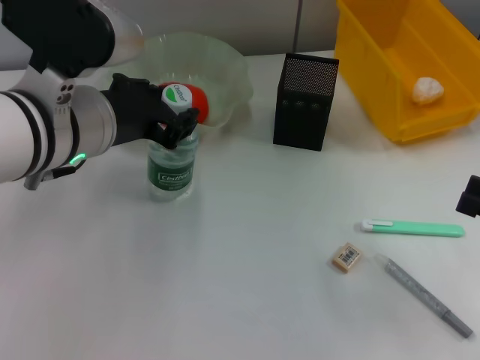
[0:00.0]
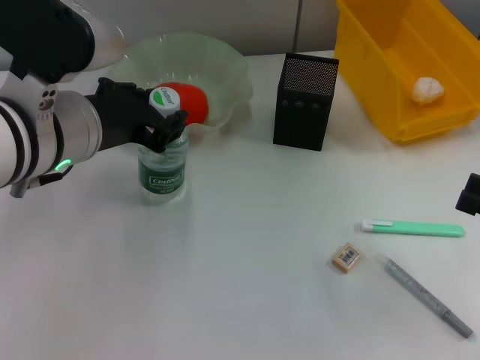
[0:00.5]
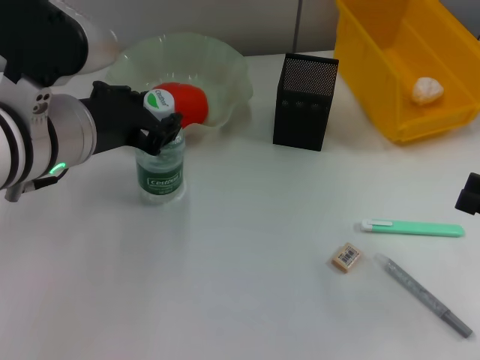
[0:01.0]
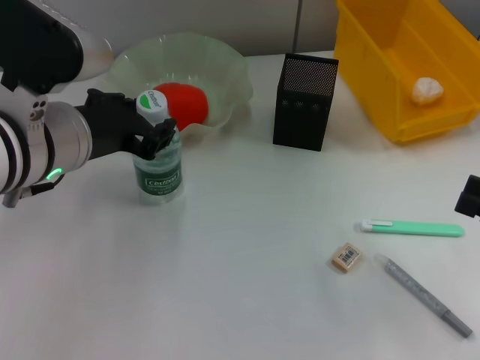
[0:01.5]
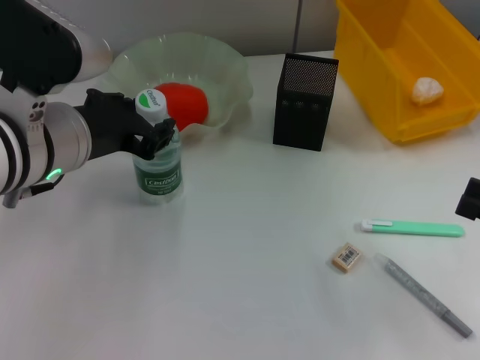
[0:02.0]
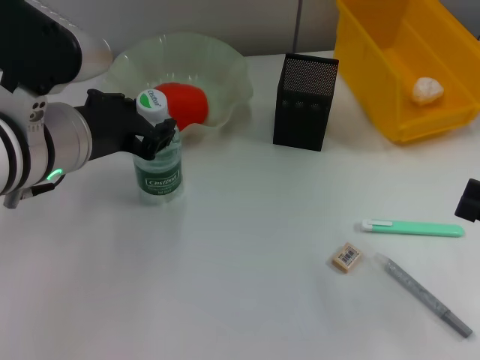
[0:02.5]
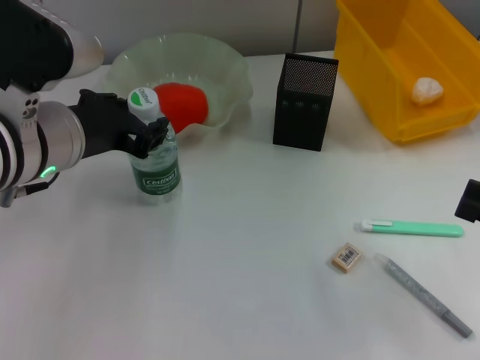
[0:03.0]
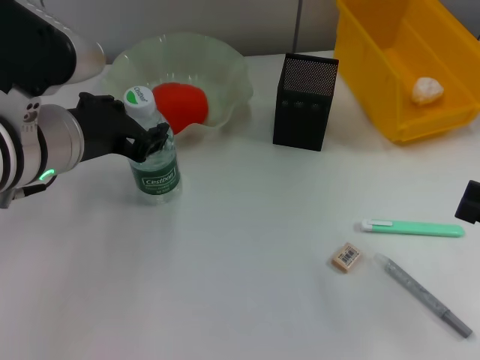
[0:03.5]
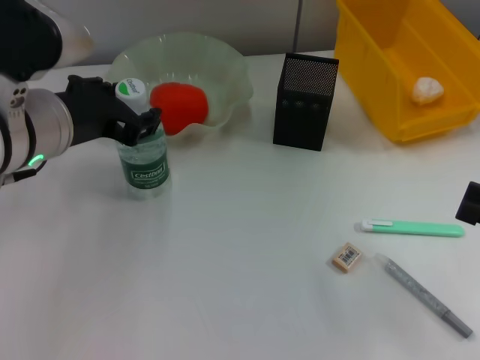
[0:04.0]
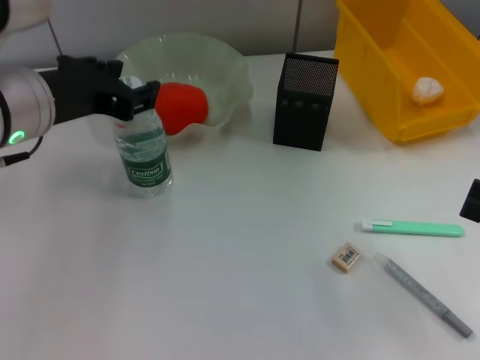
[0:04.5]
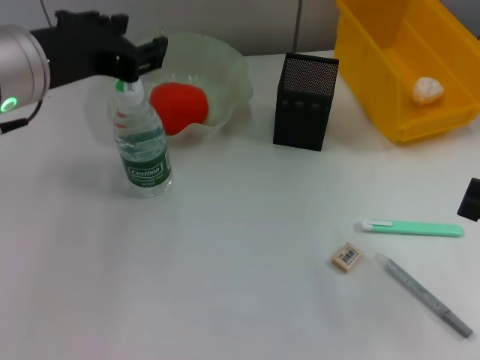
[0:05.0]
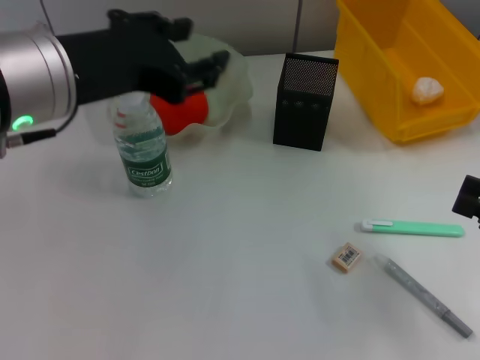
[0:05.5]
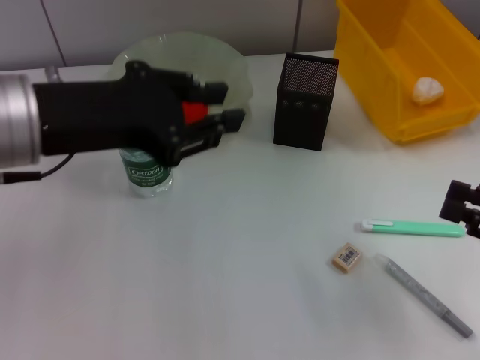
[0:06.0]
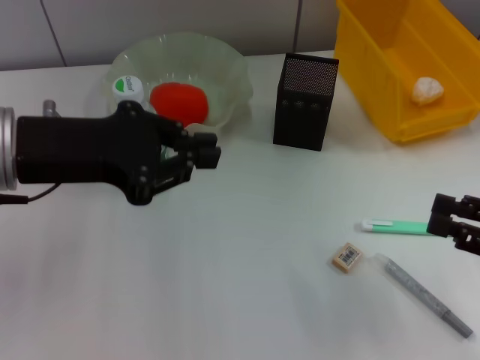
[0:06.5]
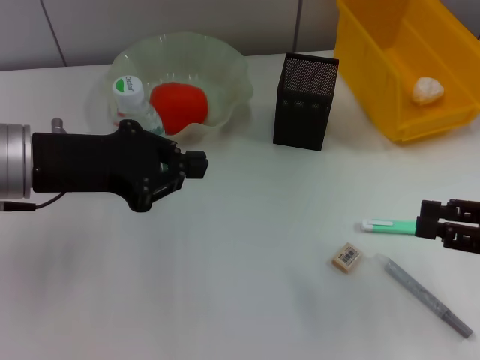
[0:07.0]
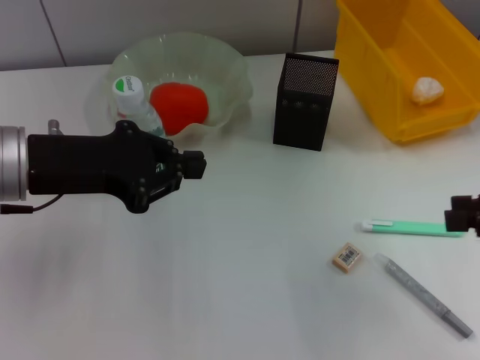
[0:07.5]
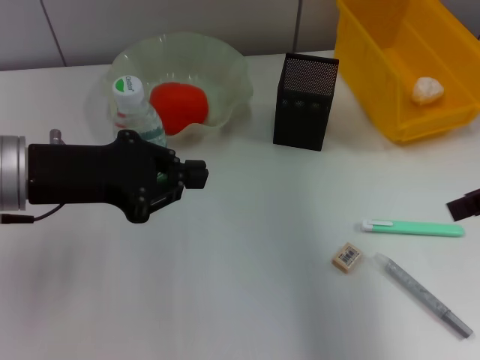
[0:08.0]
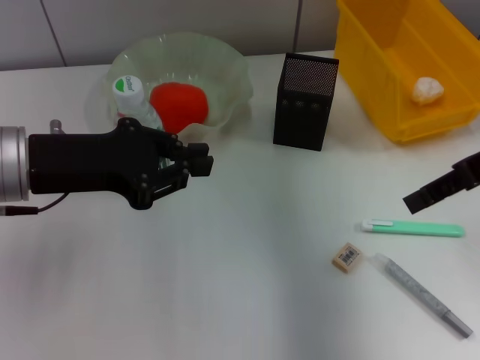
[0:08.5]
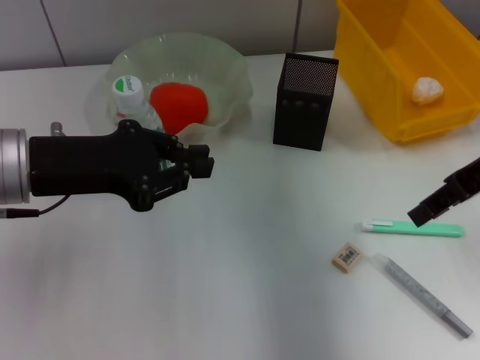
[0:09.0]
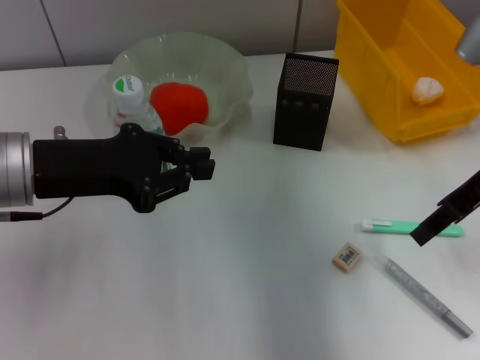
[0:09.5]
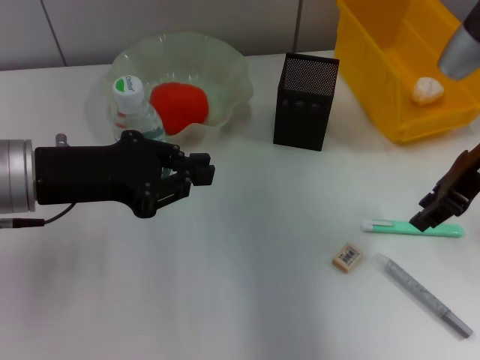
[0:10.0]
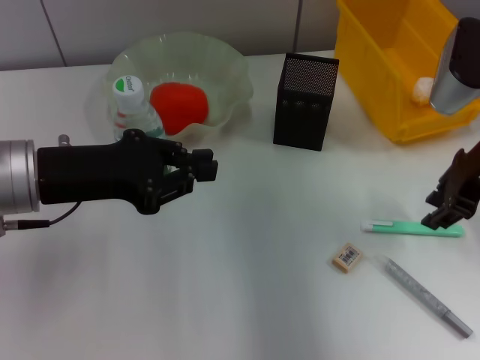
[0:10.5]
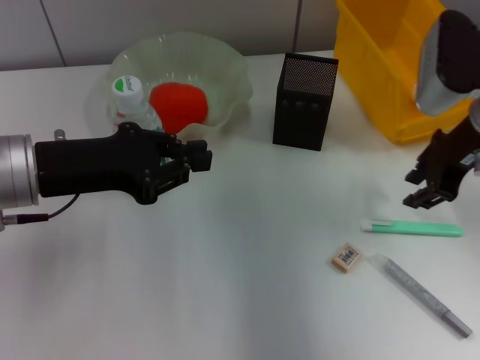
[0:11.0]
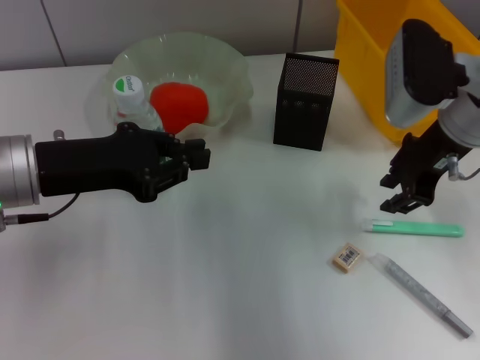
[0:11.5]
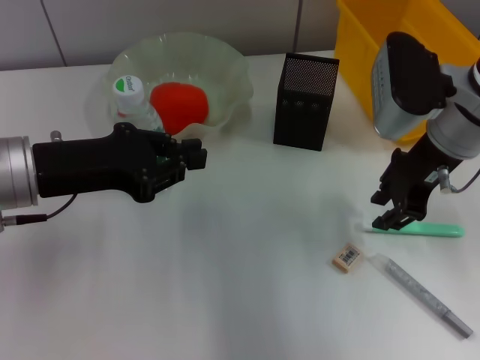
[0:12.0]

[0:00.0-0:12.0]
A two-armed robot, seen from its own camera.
Step, 0:00.0 to 0:05.0: Place the water bottle on the table with the left hand.
0:00.0 to 0:04.0: The grippers move only a little.
0:04.0 to 0:06.0: The left gripper moves some 5 cm.
0:06.0 to 0:08.0: The right gripper travels upward and forward by approximately 15 cm, while the left gripper is displaced downward by about 5 cm, and closes.
0:08.0 to 0:10.0: The right gripper heads forward, to the left and downward, covering about 10 cm.
0:10.0 to 0:12.0: The right gripper shifts about 5 cm to the left.

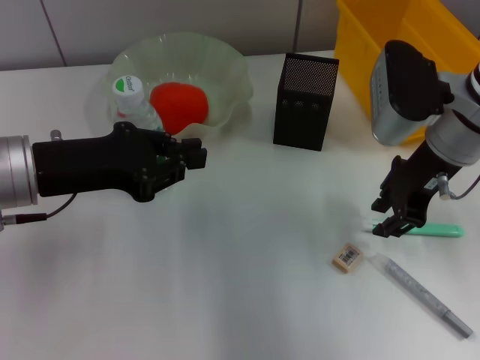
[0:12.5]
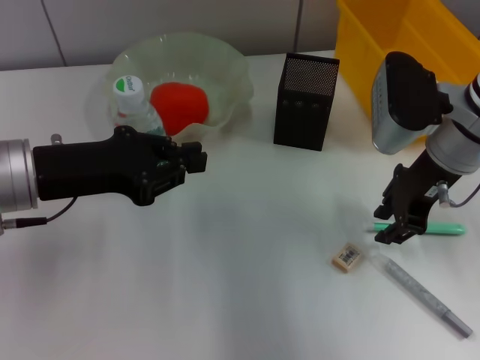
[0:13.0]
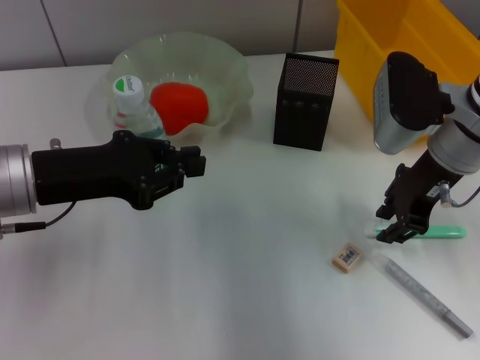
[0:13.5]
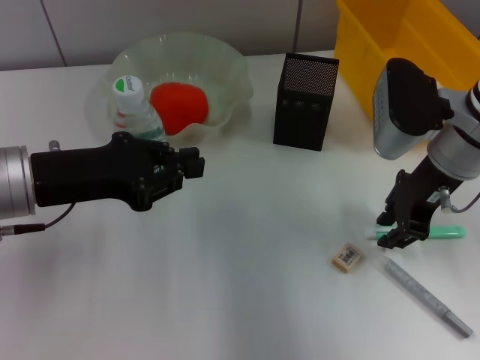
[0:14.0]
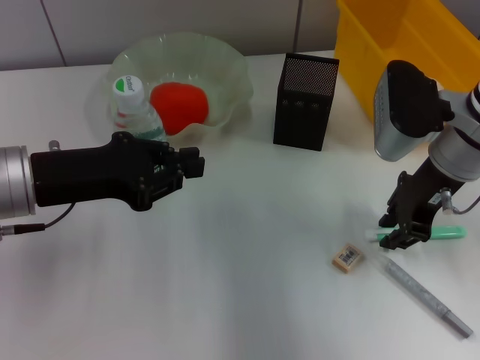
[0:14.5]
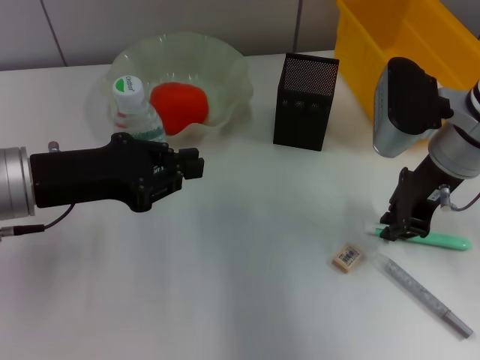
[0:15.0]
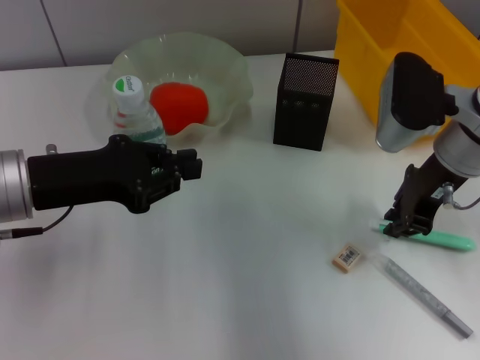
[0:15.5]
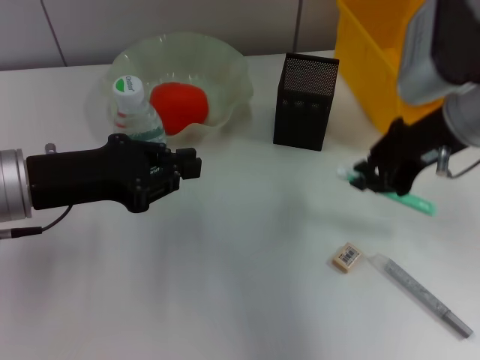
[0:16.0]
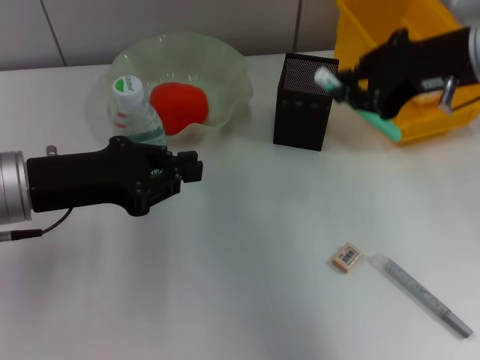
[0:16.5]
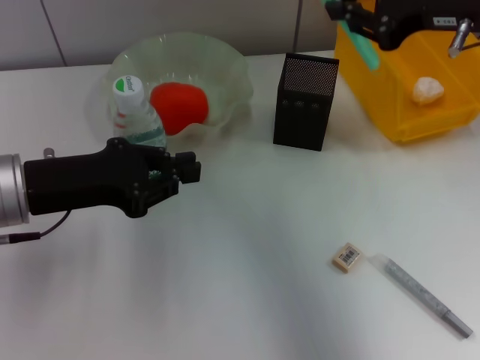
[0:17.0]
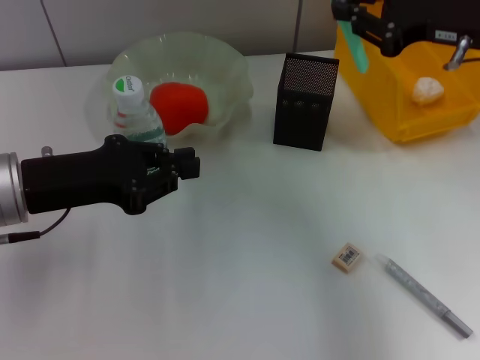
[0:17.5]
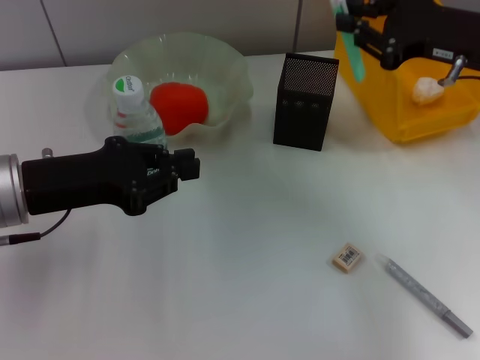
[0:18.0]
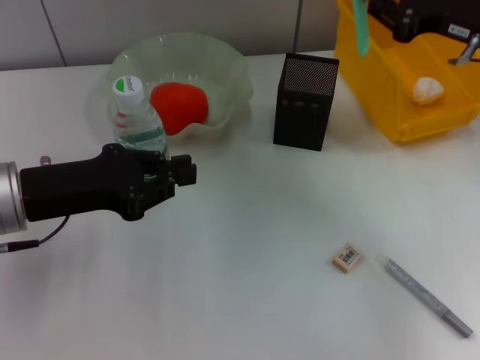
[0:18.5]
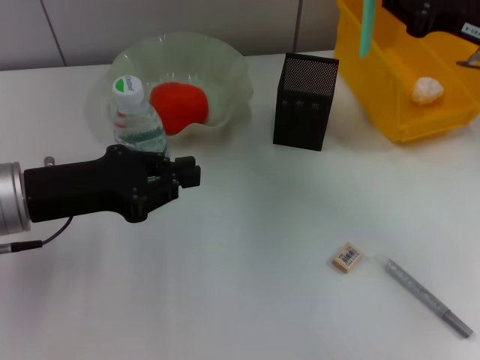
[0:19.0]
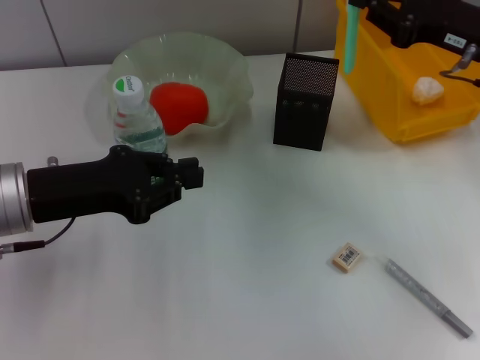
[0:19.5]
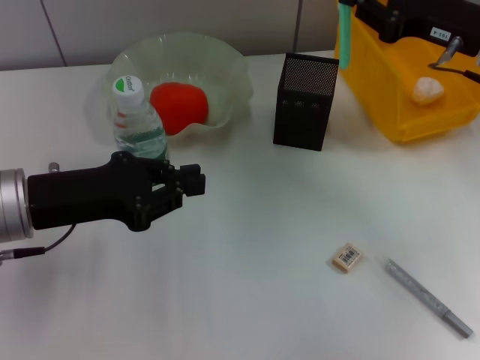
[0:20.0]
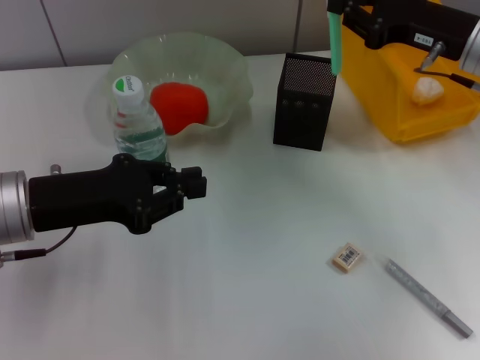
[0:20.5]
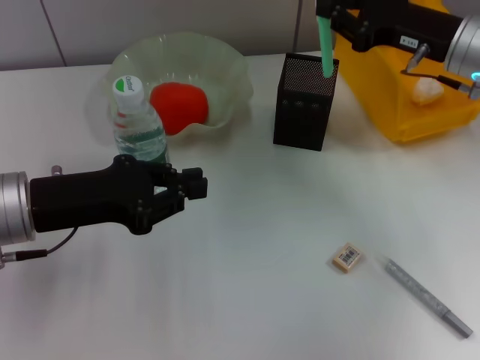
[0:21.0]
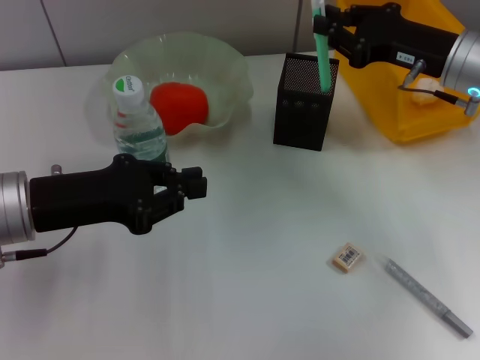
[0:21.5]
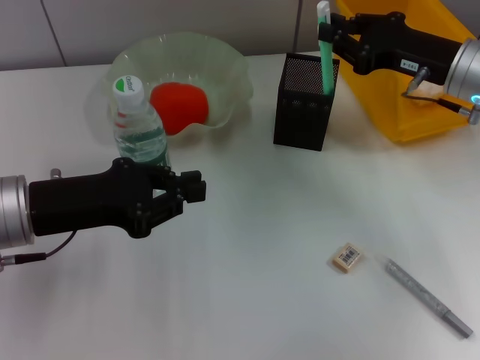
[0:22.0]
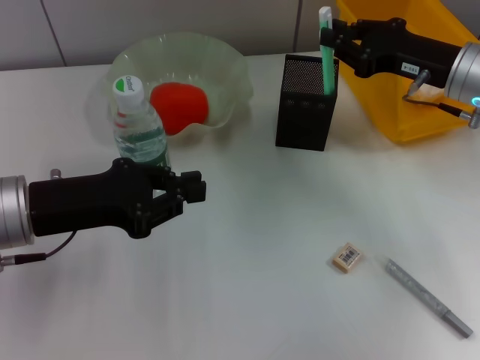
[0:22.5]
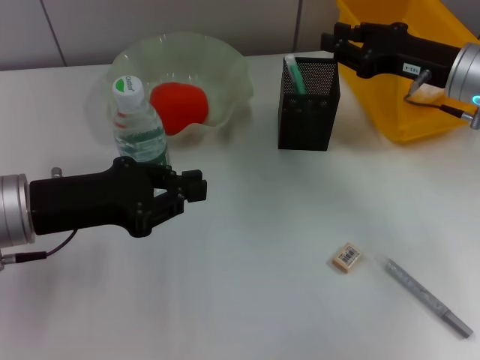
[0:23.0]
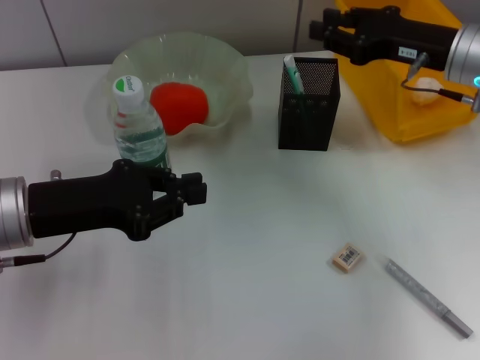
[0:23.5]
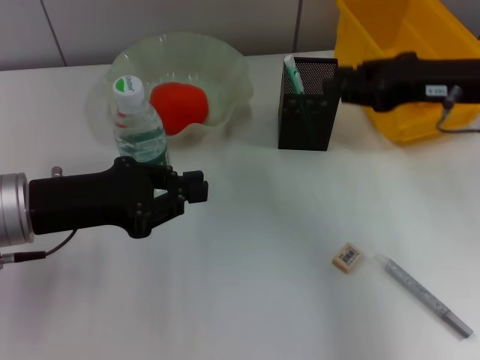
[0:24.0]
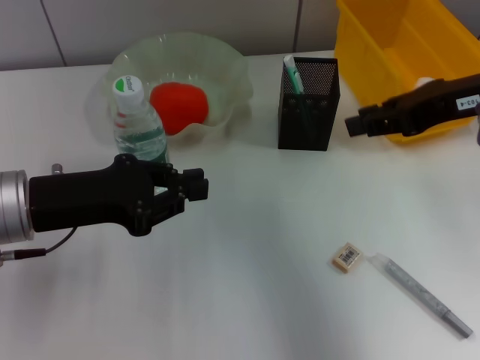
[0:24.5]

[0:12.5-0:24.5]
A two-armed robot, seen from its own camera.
Step, 0:12.5 to 0:15.0: Grab the blue utility knife with the right hand.
Step, 0:15.5 to 0:23.0: Place the blue utility knife into the pen holder with the right hand.
0:12.5 to 0:14.5: There are only small adjustments of the grippers.
0:14.5 to 0:16.5: The right gripper moves upward, roughly 10 cm.
0:16.5 to 0:18.5: The right gripper goes approximately 10 cm to the right and downward.
0:18.5 to 0:20.5: The grippers move only a little.
0:20.5 to 0:22.5: The grippers stay close to where they were, moving slightly.
0:22.5 to 0:24.5: The right gripper is displaced upward and backward by about 10 cm.

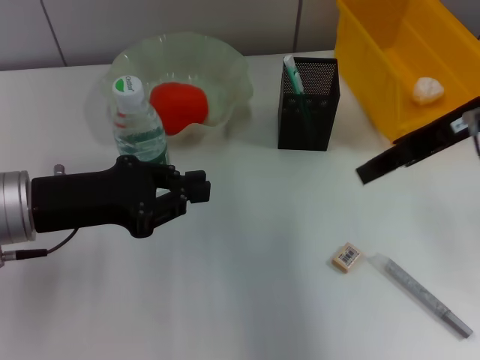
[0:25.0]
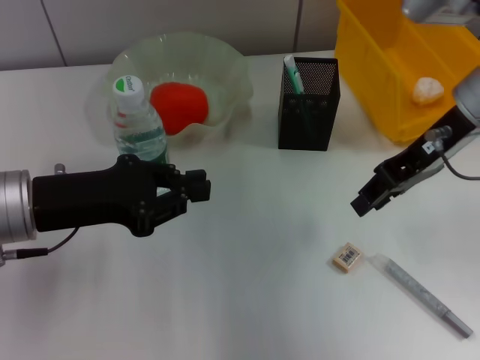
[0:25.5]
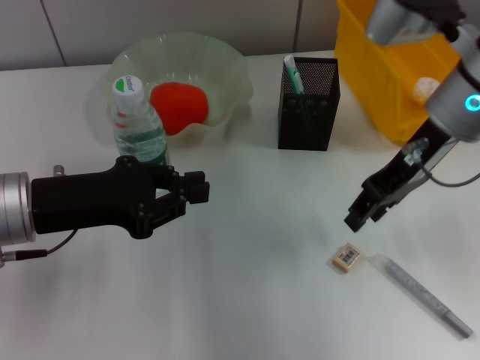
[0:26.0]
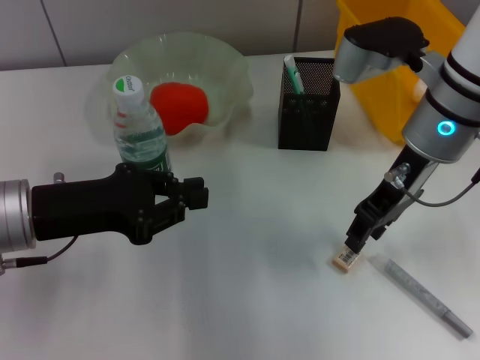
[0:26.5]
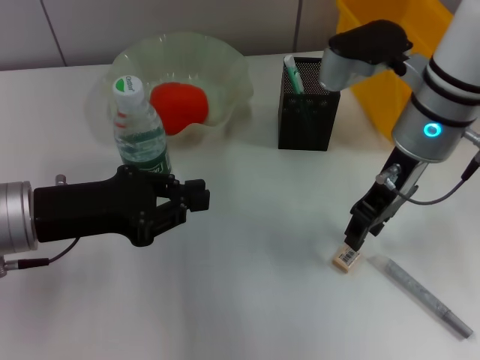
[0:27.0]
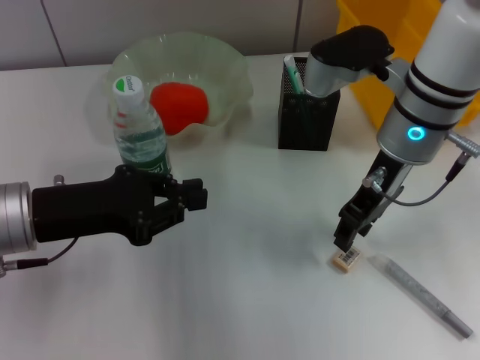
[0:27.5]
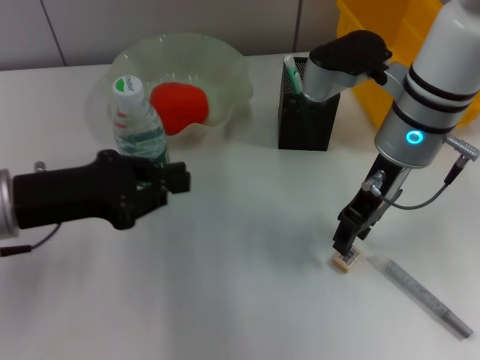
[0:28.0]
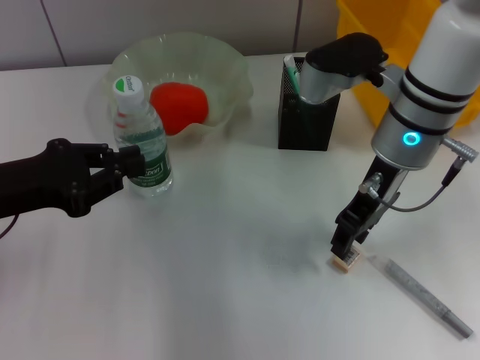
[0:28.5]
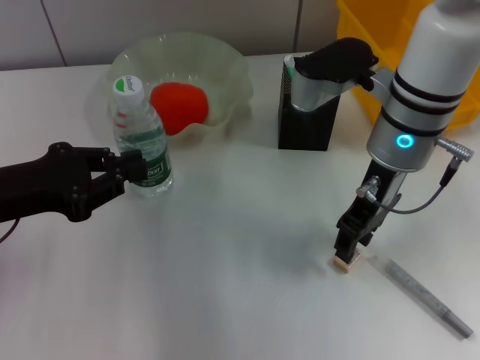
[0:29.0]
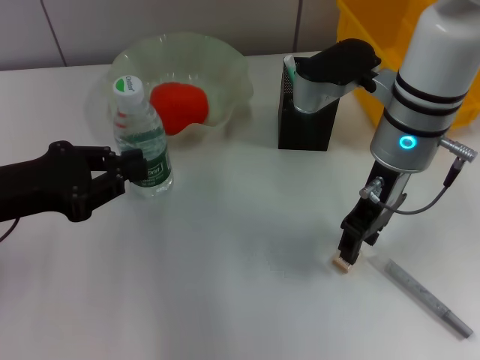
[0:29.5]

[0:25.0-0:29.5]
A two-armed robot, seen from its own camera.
0:25.0 to 0:27.0: The right gripper shifts approximately 10 cm downward and to the left.
0:27.0 to 0:29.5: The left gripper moves roughly 5 cm.
